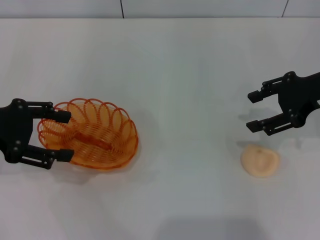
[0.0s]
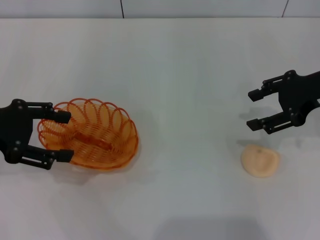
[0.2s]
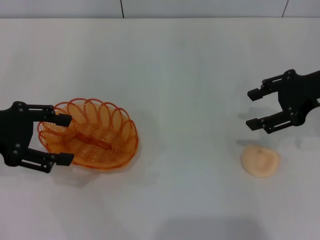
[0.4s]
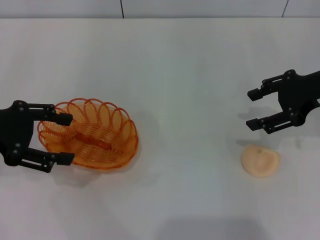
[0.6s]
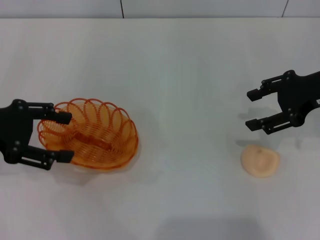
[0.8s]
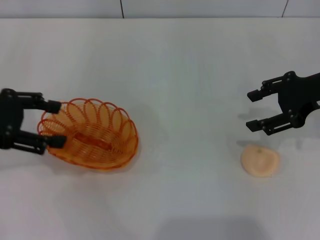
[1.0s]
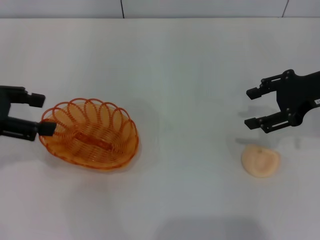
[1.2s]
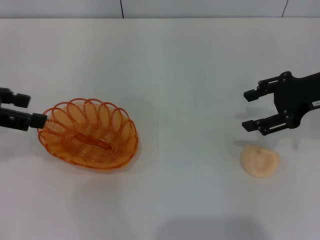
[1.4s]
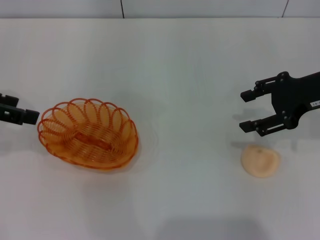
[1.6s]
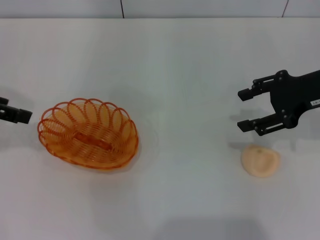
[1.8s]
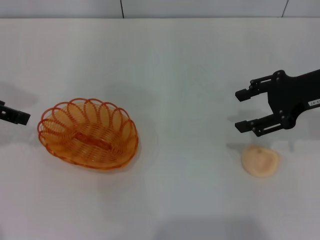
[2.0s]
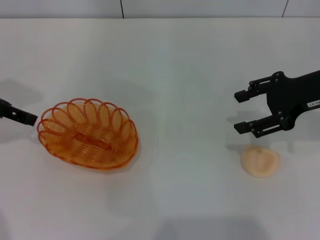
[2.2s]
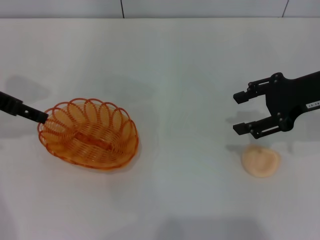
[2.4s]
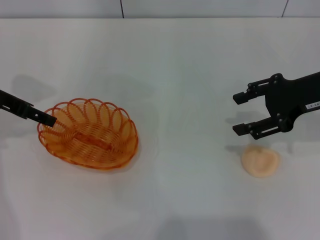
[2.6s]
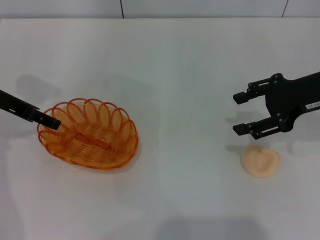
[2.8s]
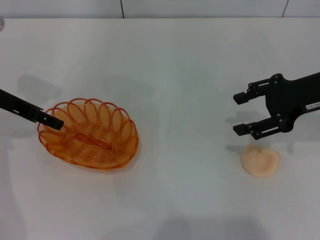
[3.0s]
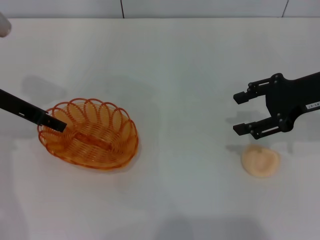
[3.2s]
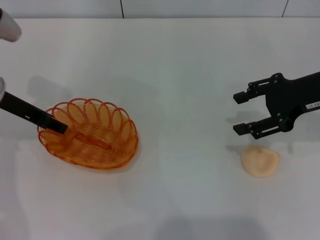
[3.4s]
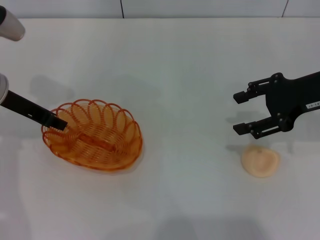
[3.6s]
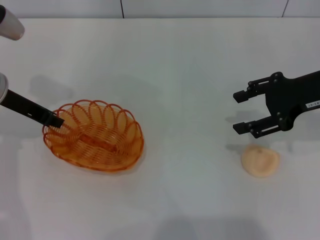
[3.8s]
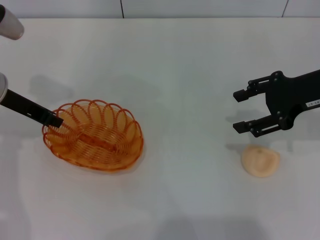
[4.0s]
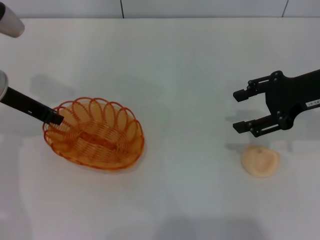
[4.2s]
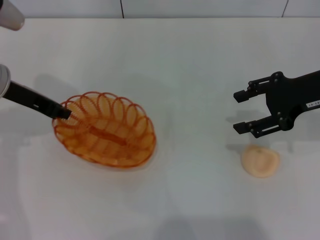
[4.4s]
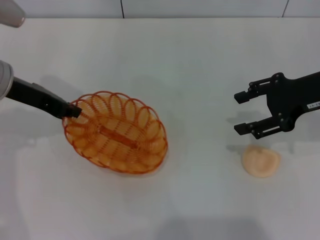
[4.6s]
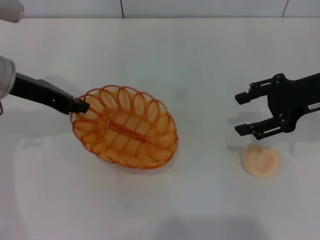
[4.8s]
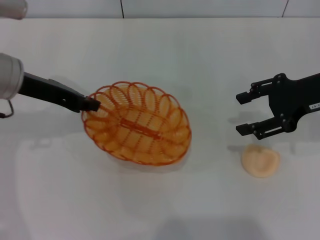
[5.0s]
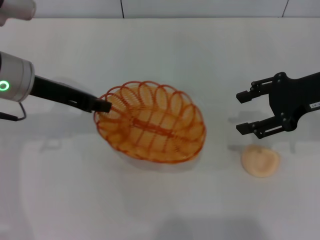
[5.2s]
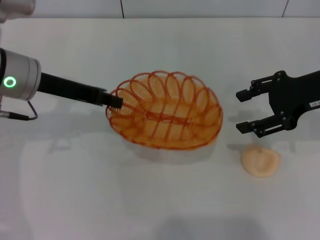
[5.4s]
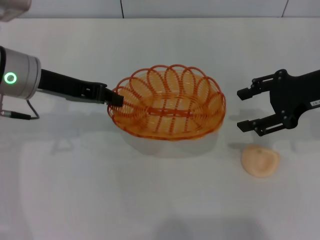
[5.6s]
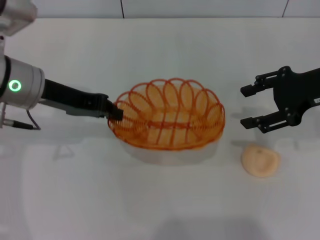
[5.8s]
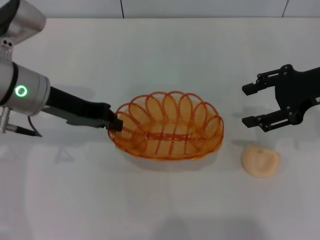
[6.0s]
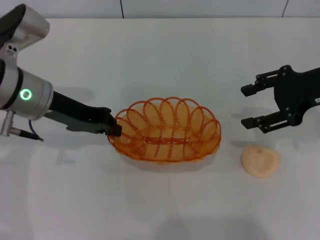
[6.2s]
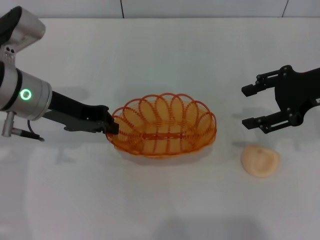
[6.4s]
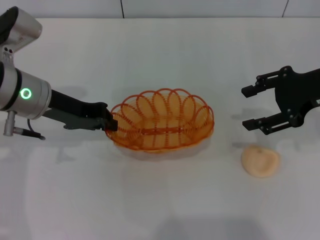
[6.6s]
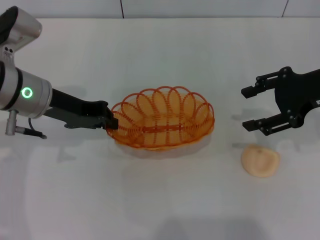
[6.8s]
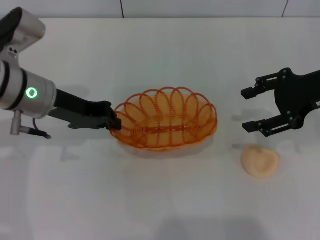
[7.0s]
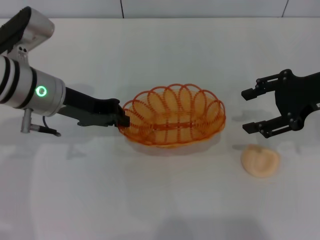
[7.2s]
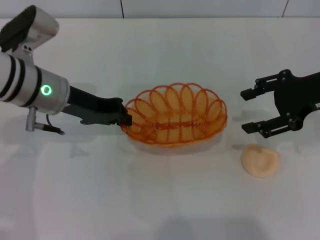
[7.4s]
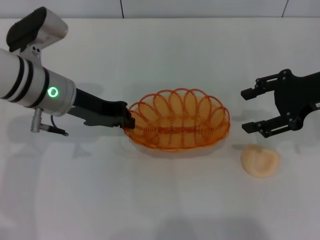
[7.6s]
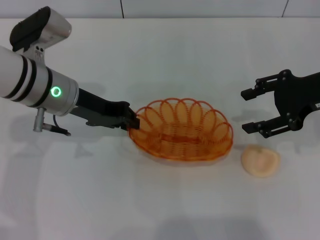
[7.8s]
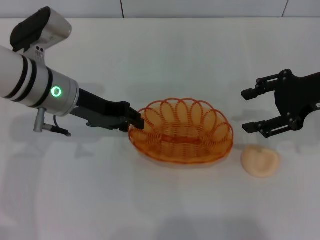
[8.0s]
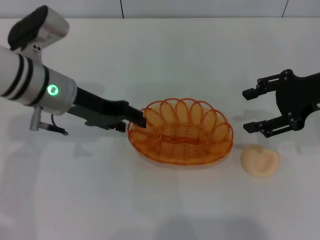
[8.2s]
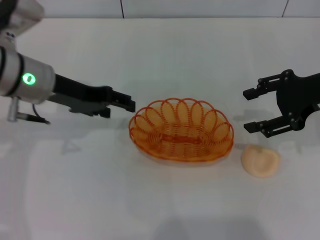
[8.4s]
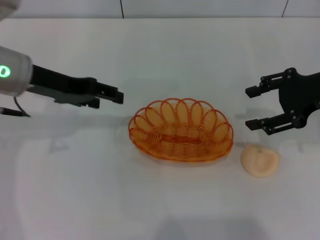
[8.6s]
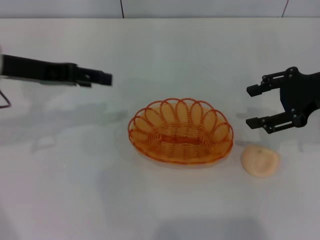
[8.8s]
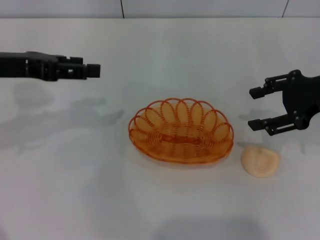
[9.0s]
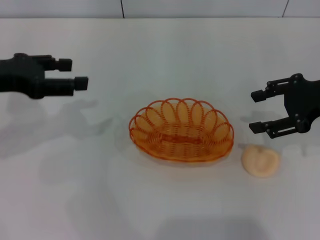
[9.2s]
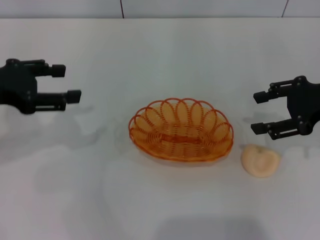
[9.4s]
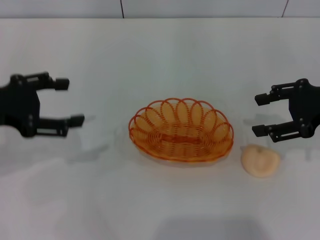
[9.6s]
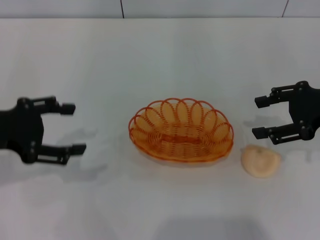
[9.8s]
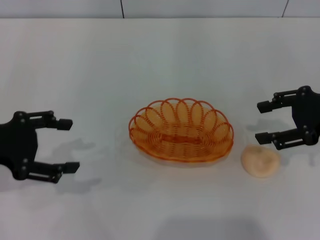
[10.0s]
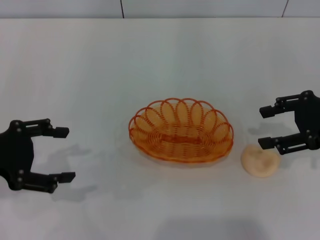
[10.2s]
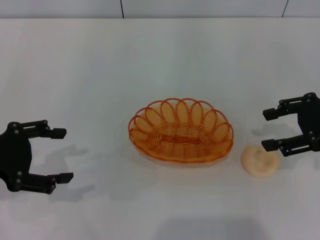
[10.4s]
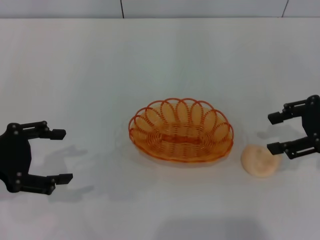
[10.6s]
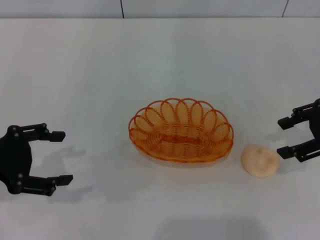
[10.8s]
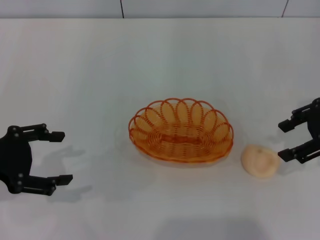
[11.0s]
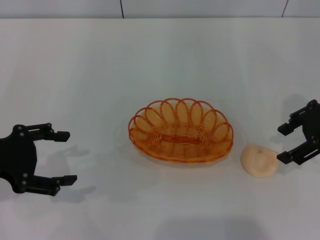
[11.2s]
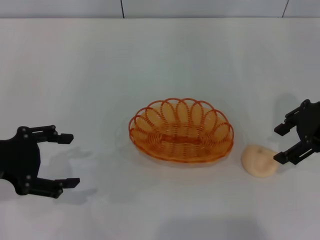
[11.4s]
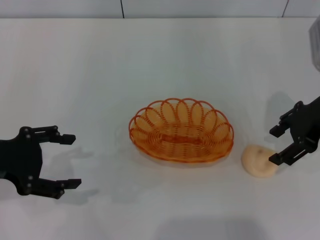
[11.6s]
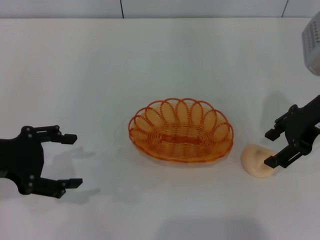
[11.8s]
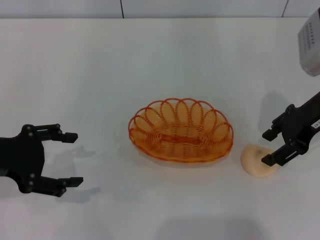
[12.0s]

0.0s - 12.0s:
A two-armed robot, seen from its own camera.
Step, 0.0s - 4.8s: Pick up the basket with the left gripper.
Step, 5.0s - 8.6s: Place the basket in the center of view with the left gripper.
0.0s - 1.6s: The left gripper travels upward by approximately 5 cm.
1.6s - 3.0s: The left gripper shifts about 10 cm downward and forward.
3.0s - 4.4s: The left gripper closes.
4.4s - 6.0s: The left gripper changes place by roughly 5 cm.
6.0s - 7.6s: There are only small adjustments of the grippers.
7.6s - 9.0s: The left gripper goes some 10 cm to the left and upward, and opens.
9.0s - 10.4s: The left gripper shifts some 10 cm backward.
10.4s - 12.0s: The right gripper is displaced to the left by approximately 5 cm.

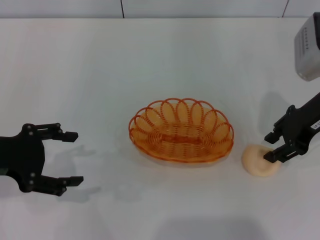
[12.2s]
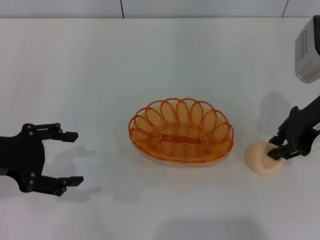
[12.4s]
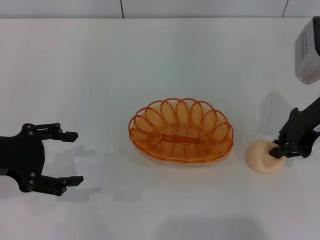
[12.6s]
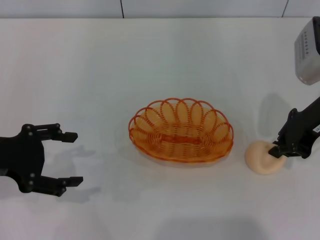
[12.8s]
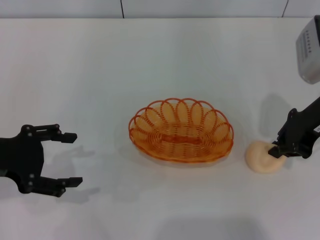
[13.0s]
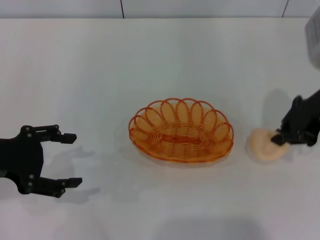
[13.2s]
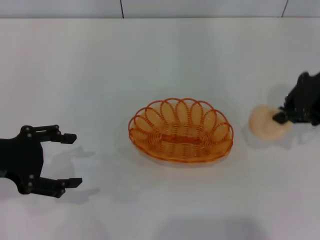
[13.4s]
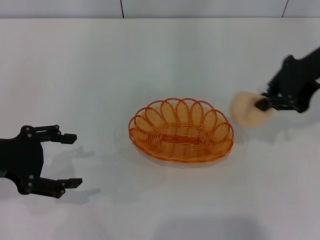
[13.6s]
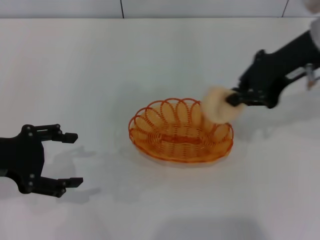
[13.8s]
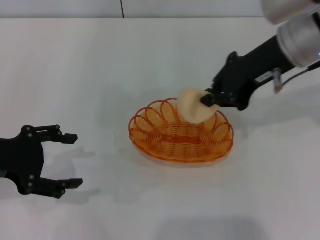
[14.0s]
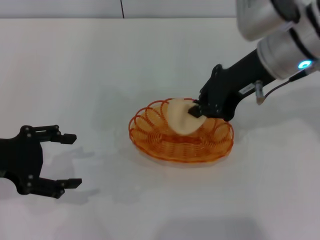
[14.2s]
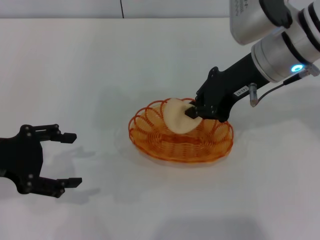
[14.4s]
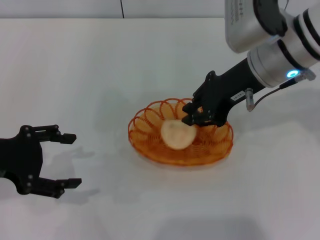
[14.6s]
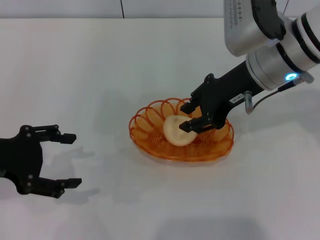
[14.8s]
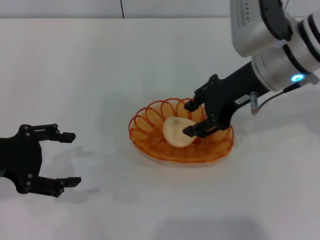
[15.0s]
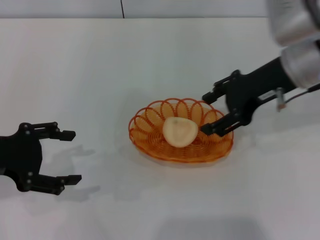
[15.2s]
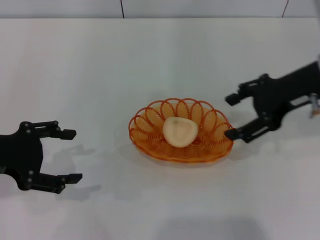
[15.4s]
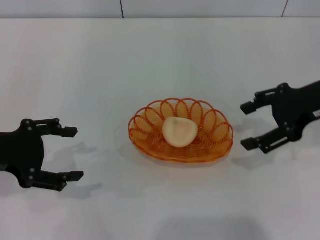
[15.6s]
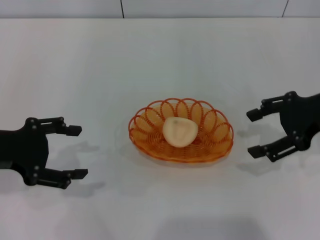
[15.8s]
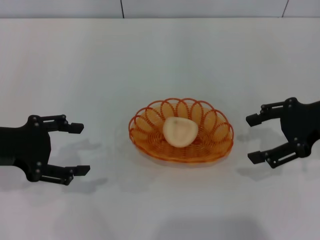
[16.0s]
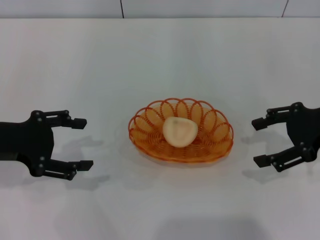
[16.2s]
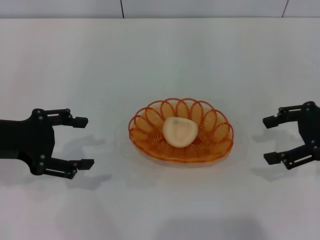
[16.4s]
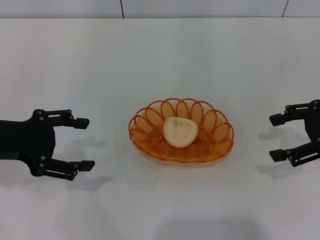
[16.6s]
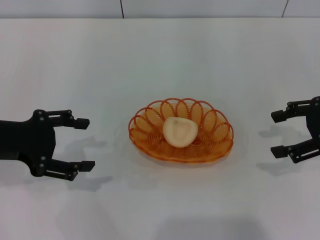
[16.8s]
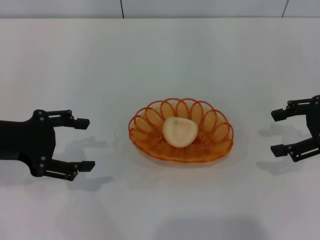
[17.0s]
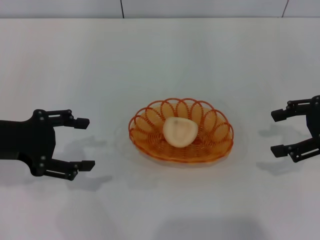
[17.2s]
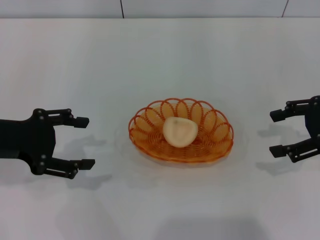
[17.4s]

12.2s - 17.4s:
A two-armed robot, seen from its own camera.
Step, 13.8s - 15.4s: Place the egg yolk pastry into the basket with the right gripper.
12.2s - 14.0s: The right gripper goes roughly 10 cm to the left and upward, and closes its fingers.
14.0s - 15.6s: The right gripper shifts roughly 10 cm to the right, and opens.
15.6s - 17.4s: The right gripper shifts approximately 5 cm to the right.

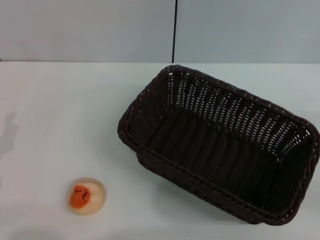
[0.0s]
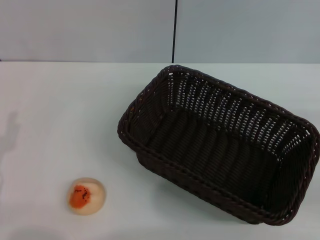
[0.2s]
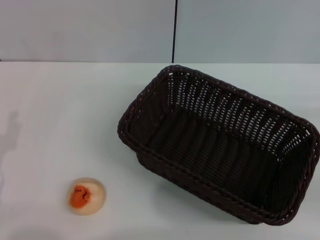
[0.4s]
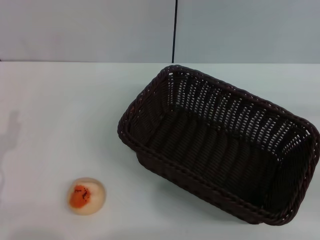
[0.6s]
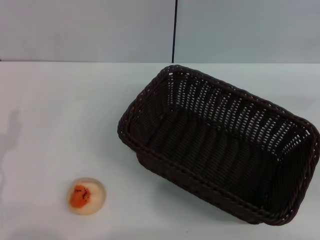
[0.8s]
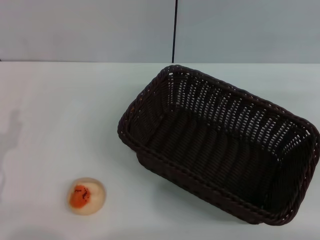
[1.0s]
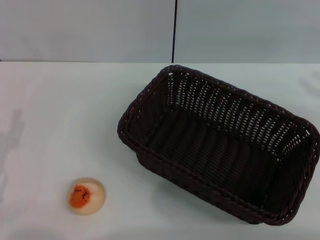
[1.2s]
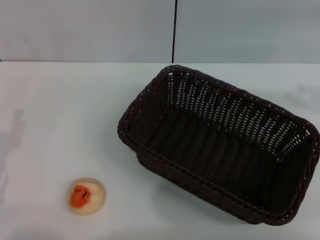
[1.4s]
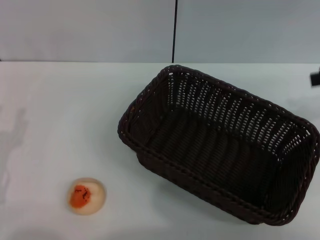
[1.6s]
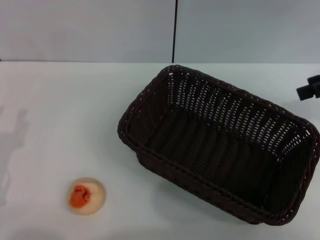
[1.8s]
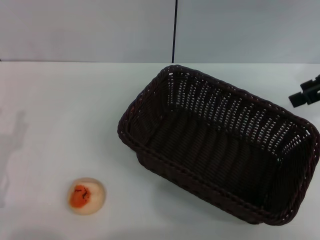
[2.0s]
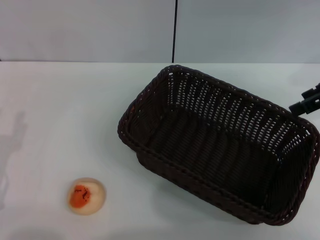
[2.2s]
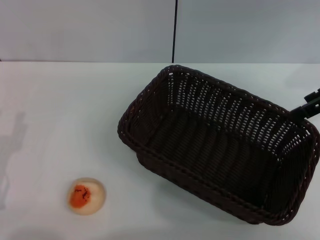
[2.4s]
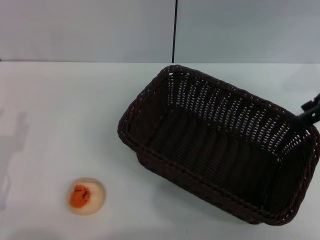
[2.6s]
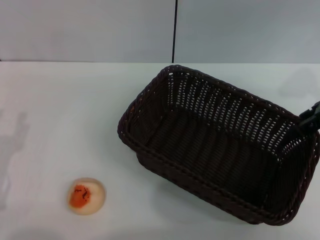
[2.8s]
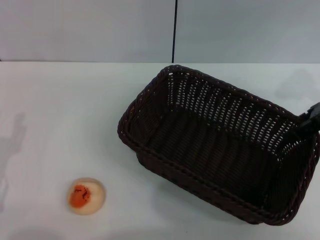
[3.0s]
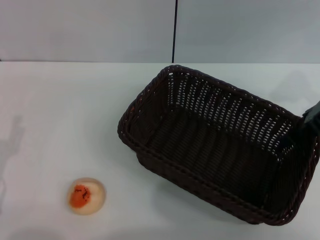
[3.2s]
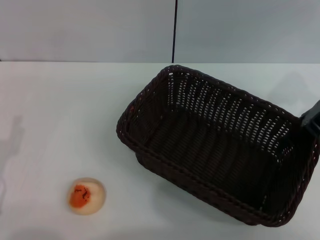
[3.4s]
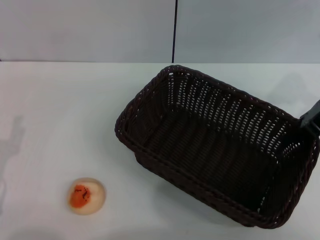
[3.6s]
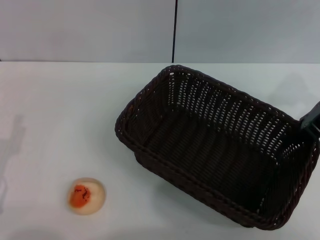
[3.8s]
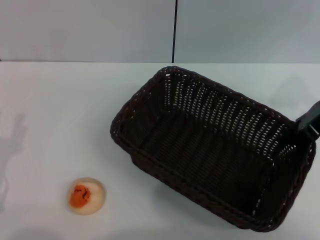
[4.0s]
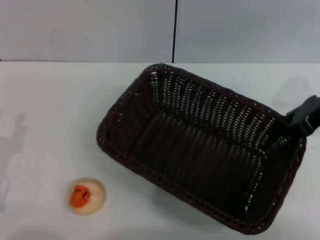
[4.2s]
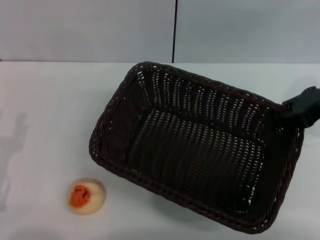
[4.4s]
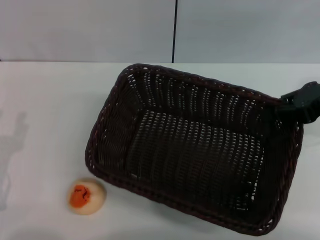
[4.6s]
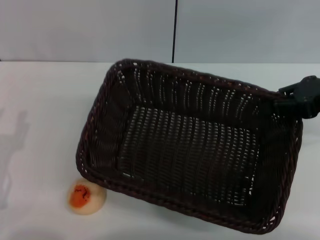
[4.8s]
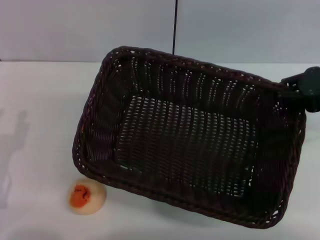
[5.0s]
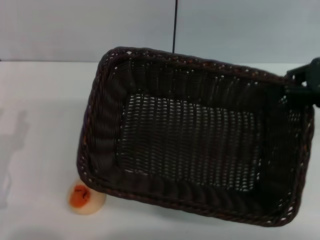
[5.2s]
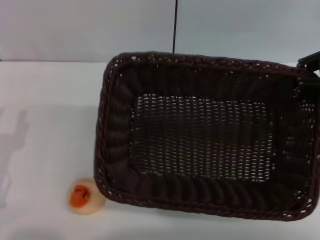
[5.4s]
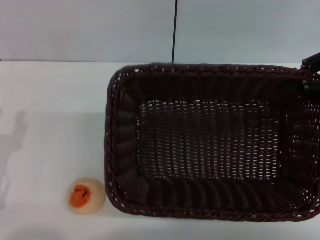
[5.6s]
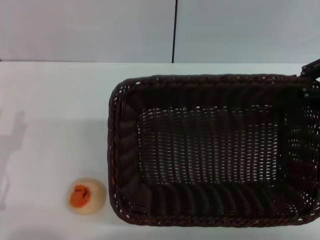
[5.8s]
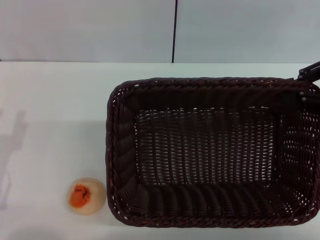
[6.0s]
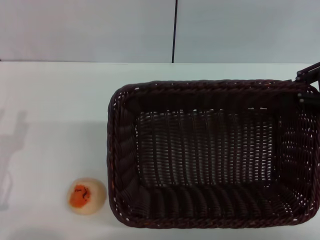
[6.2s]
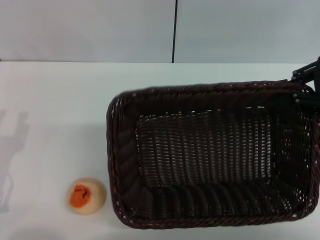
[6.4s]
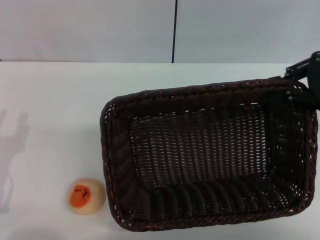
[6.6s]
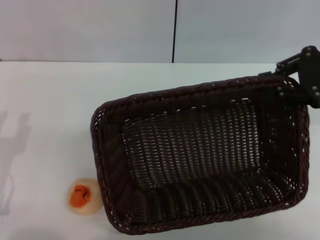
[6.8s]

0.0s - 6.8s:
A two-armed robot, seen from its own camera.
1.4s - 2.8s: The right gripper goes about 10 cm to the left.
2.8s - 4.0s: The right gripper closes.
4.0s - 5.4s: The right gripper shifts by about 5 cm.
5.4s - 6.8s: The grippers move only a little.
